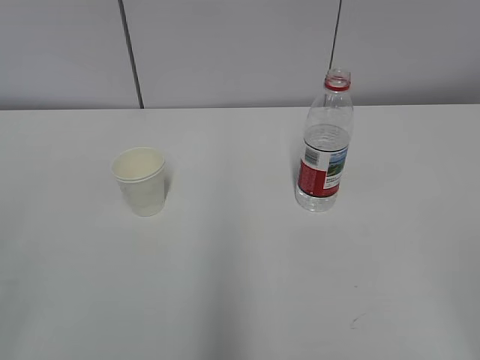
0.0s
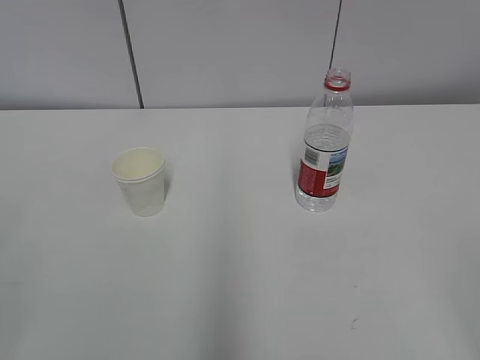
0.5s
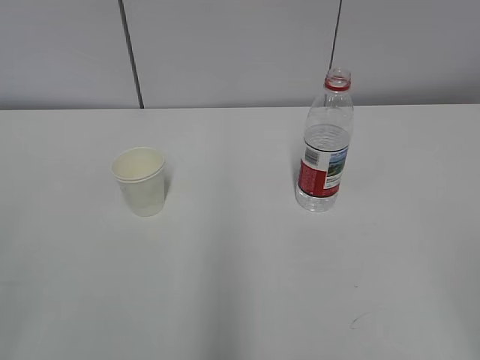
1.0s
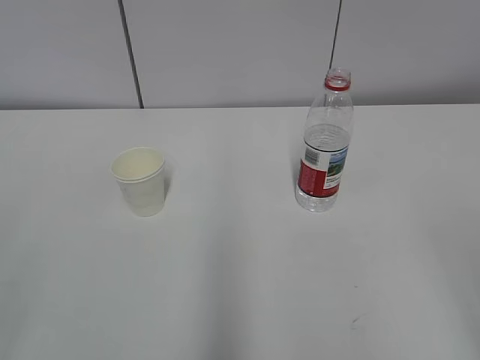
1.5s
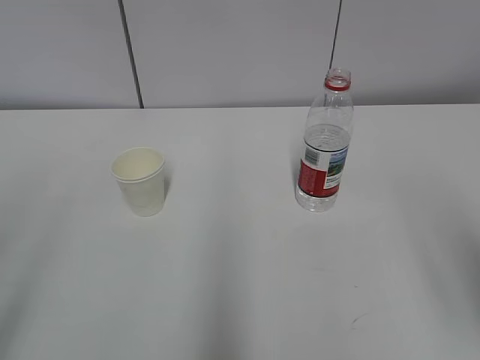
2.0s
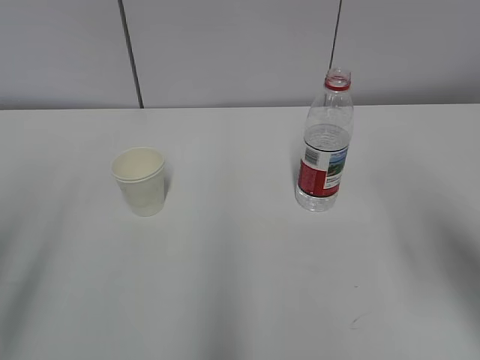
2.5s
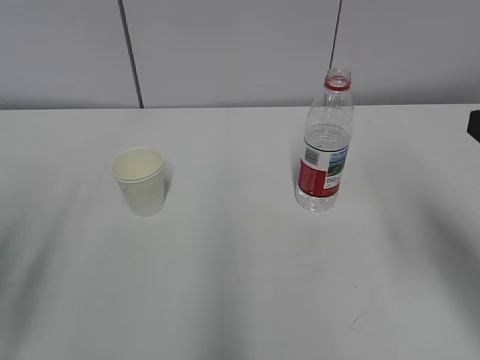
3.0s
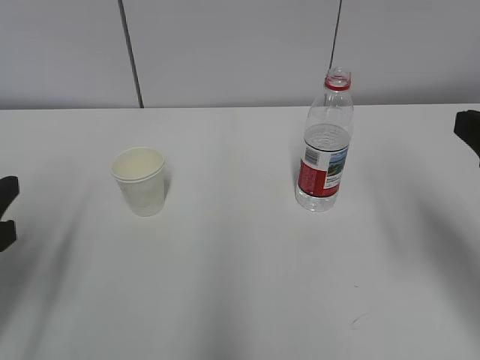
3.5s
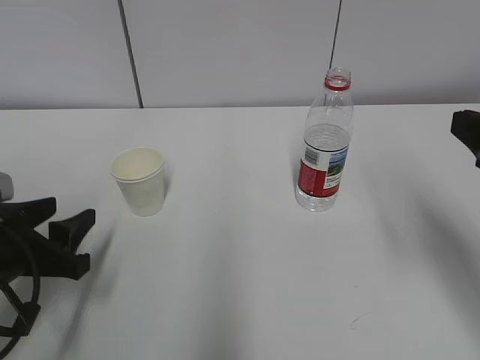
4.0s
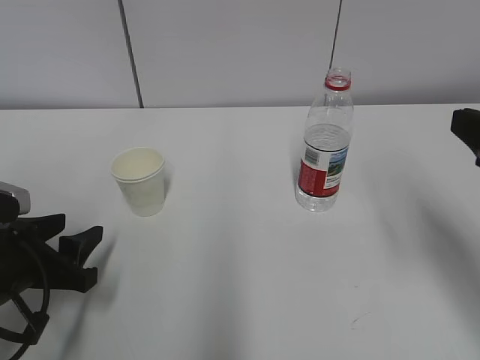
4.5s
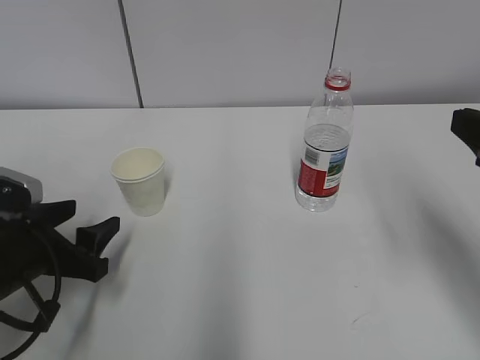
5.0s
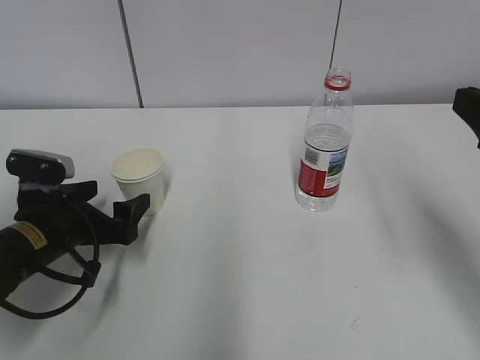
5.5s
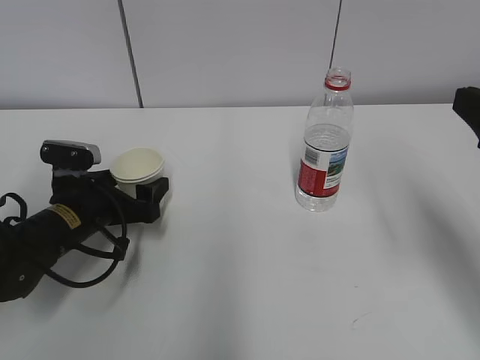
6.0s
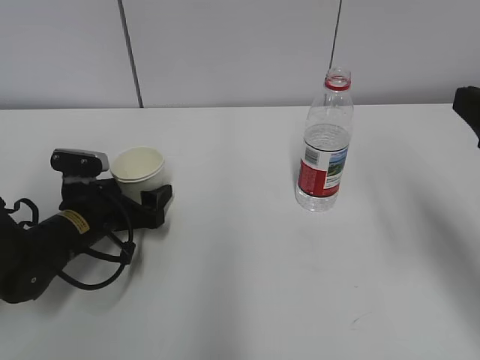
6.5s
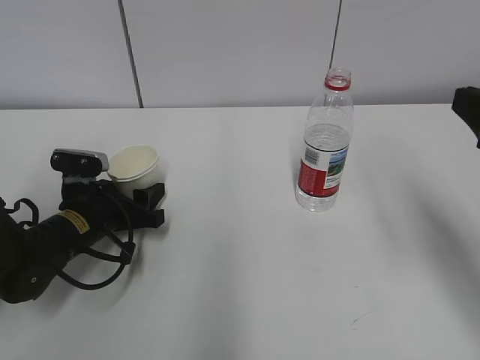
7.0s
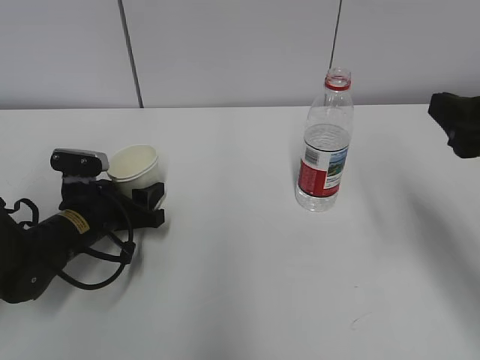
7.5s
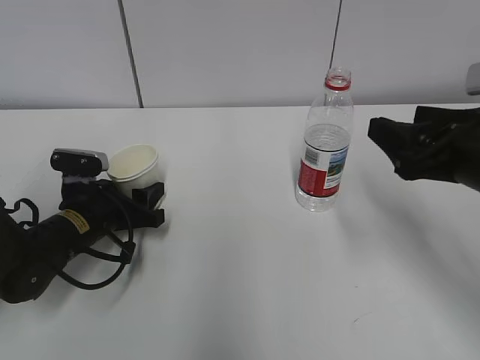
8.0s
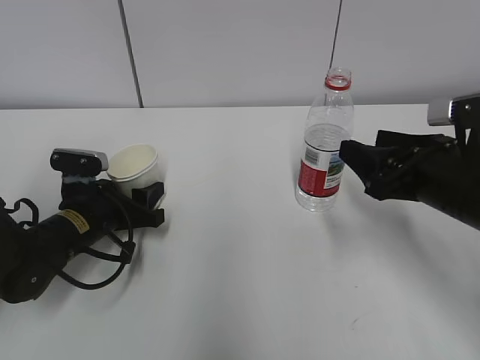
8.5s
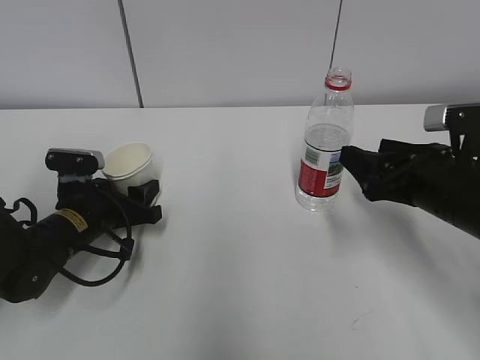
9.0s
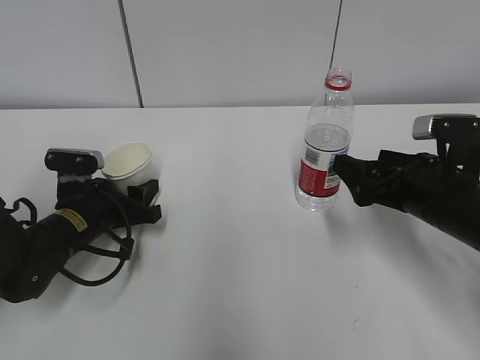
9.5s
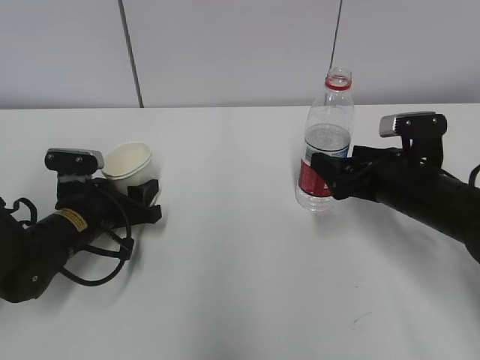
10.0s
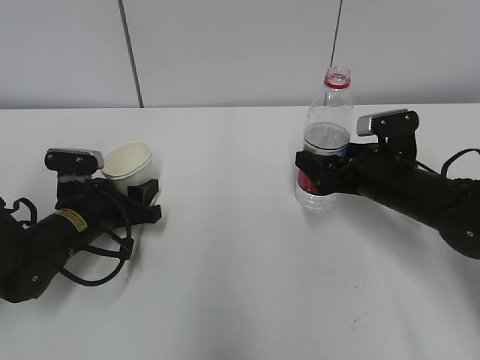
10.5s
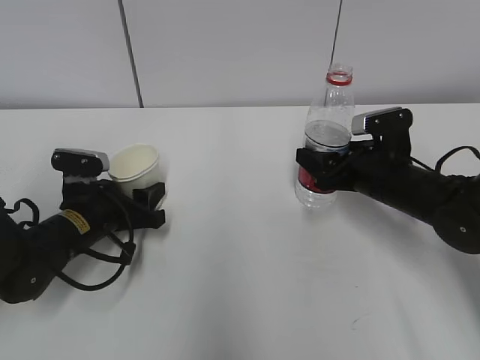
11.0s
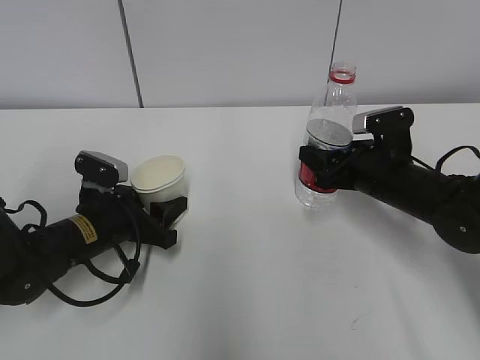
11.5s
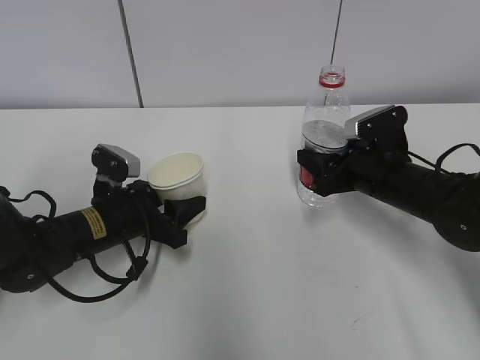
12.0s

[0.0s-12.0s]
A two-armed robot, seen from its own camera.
Step, 0.0s to 7.0s: Grab the paper cup with the left hand.
Step, 7.5s to 9.5s: Grab the water bottle with the right hand.
2.0s to 4.0s: The left gripper heads downward and forward, covering about 25 cm. Meanwhile the right gripper shifts some 10 cm forward.
4.0s to 6.0s: The left gripper shifts approximately 10 cm forward and downward, and opens up.
6.0s to 8.0s: The left gripper closes its fingers. Meanwhile the right gripper travels downward and forward by approximately 5 cm.
8.0s to 10.0s: The right gripper travels downward and forward by about 15 cm, and opens.
10.0s to 12.0s: The right gripper closes its fingers.

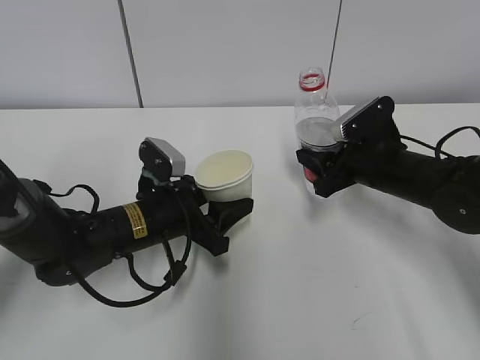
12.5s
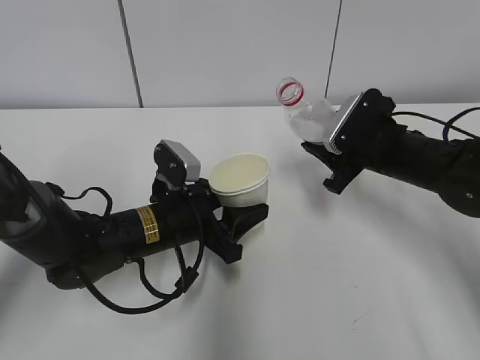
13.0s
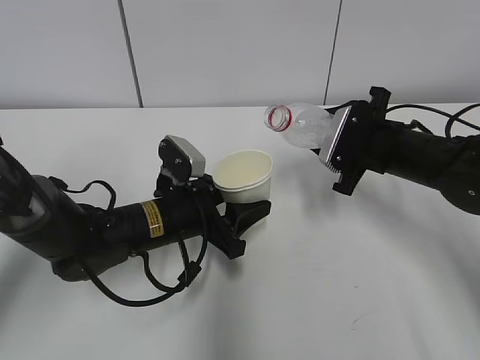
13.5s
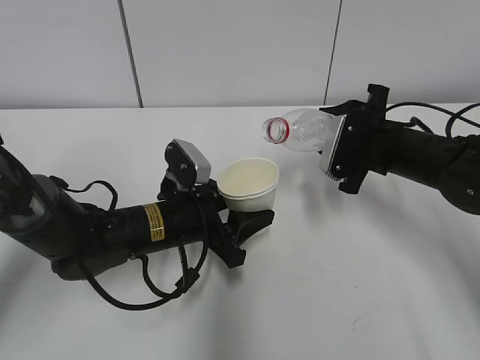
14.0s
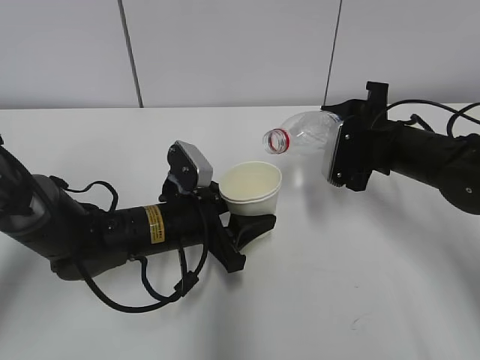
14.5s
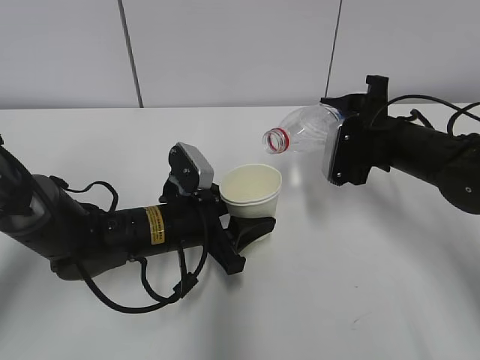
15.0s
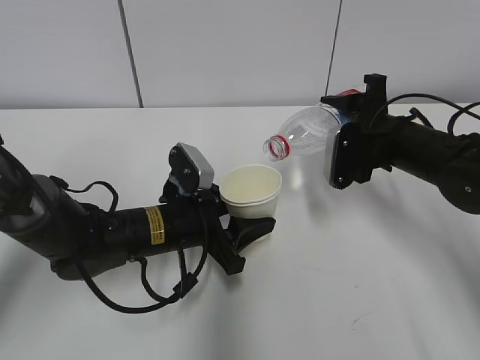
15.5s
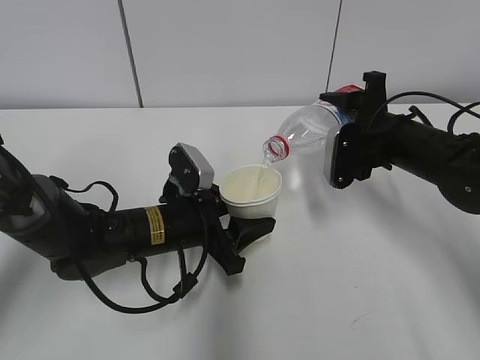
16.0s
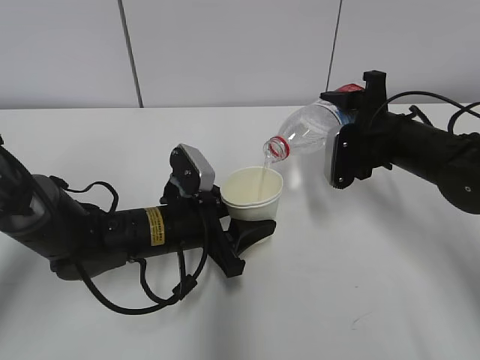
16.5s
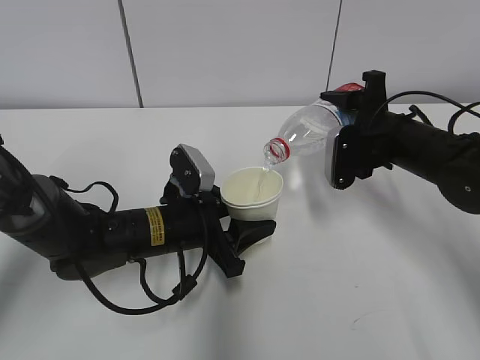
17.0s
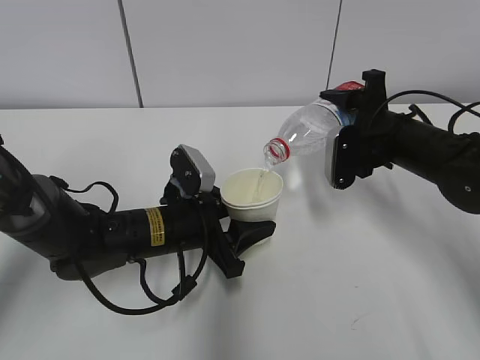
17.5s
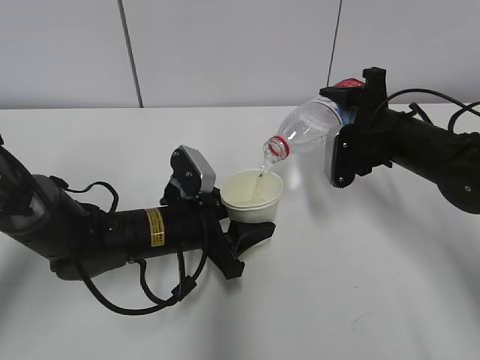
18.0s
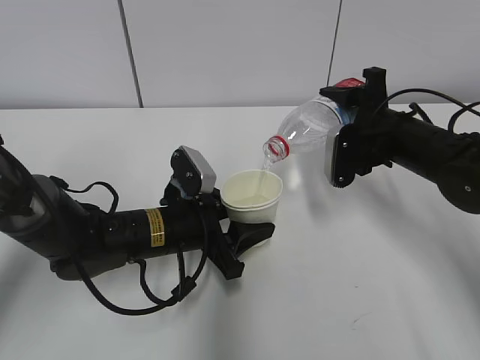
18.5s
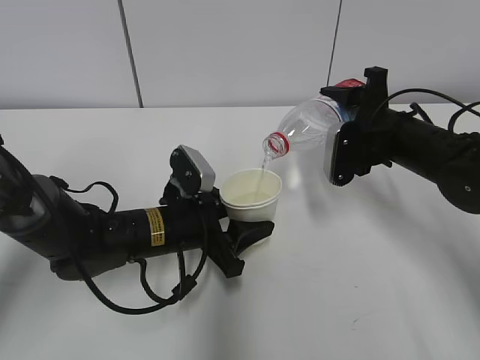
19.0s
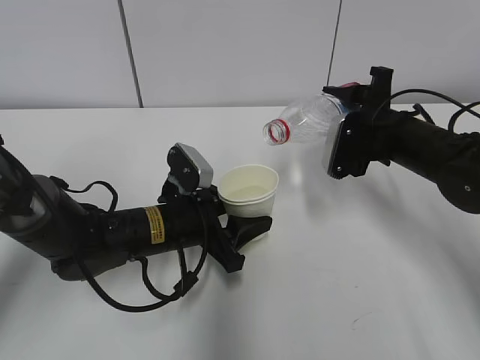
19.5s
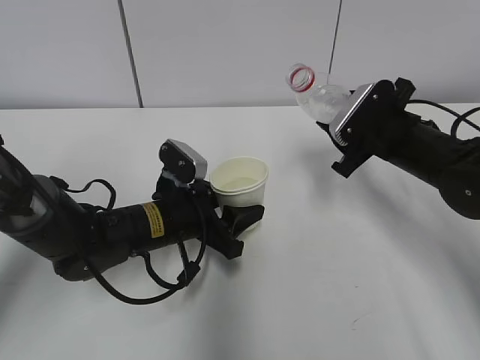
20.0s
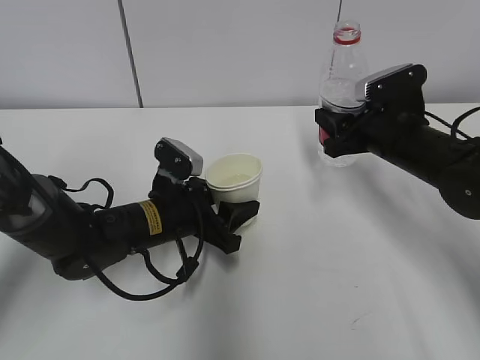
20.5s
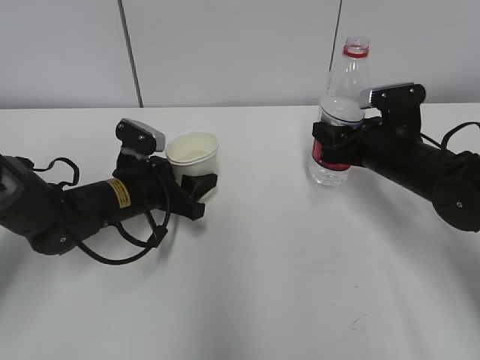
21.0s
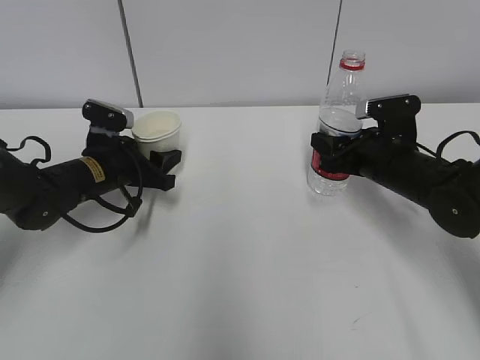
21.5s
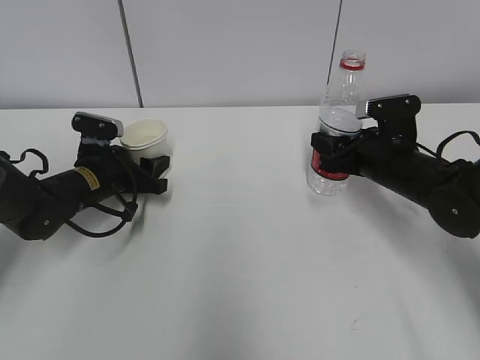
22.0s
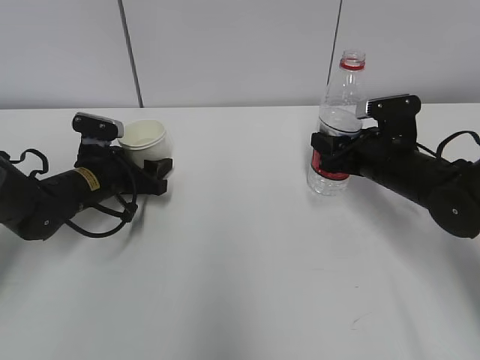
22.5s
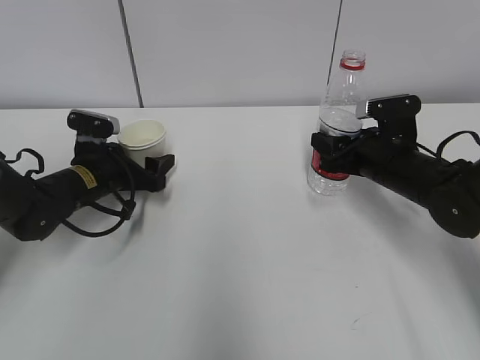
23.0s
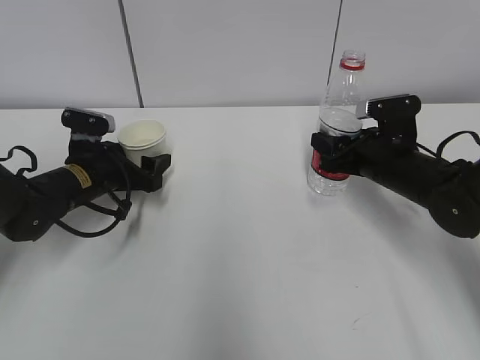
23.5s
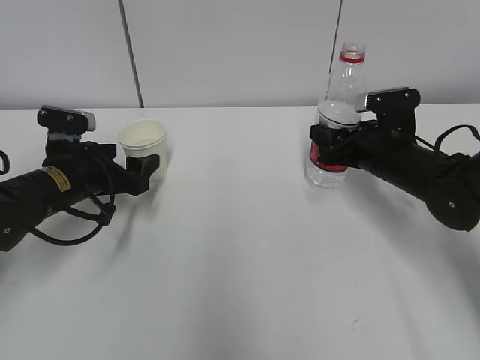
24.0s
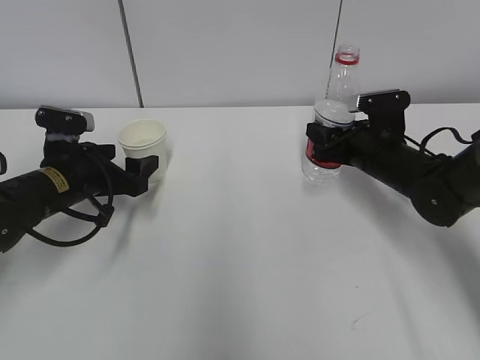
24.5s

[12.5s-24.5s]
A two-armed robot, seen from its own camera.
Step, 13.5s to 16.0s: Fill water with the left hand.
Step, 13.5s to 16.0s: Pour water with the right hand.
Step, 17.5s to 18.5s: Place the paper cup with the left hand.
Step, 19.0s to 21.5s: Place the water bottle with the right hand.
14.5s to 16.5s: There are only small adjustments of the grippers.
16.5s to 18.5s: The two grippers keep their place.
20.5s to 22.5s: The left gripper goes about 15 cm to the left and forward, and opens up.
22.5s to 24.5s: The left gripper ends up roughly 5 cm from where it was, and opens.

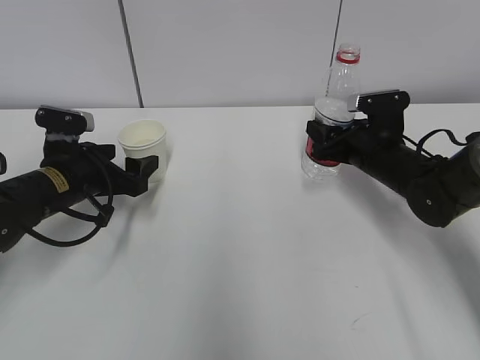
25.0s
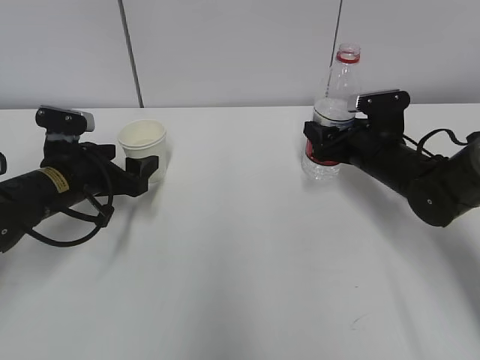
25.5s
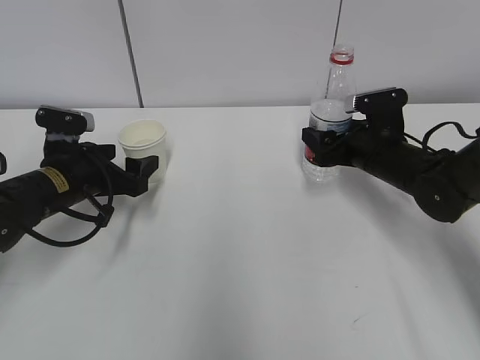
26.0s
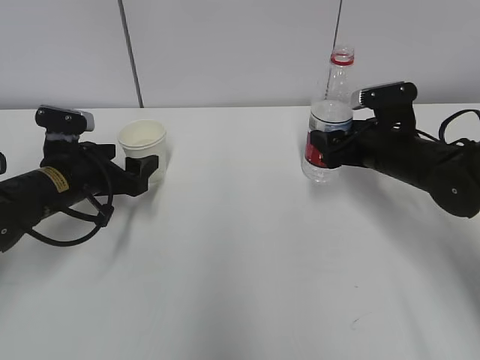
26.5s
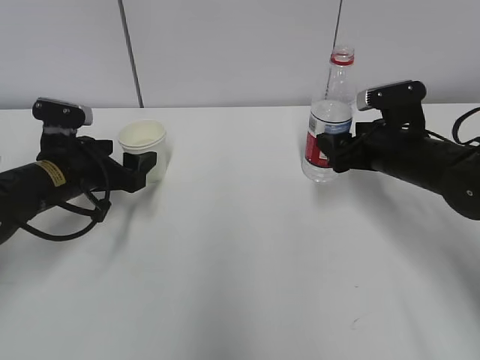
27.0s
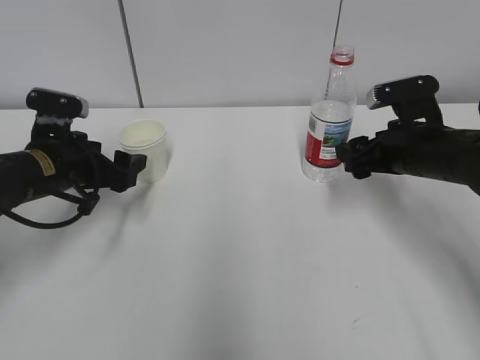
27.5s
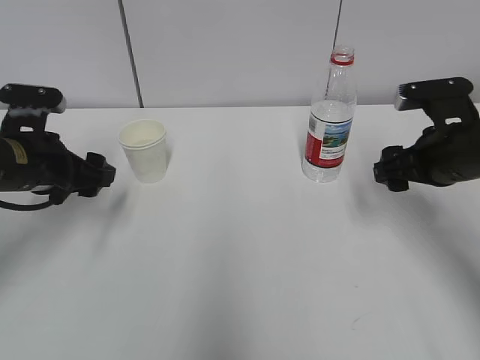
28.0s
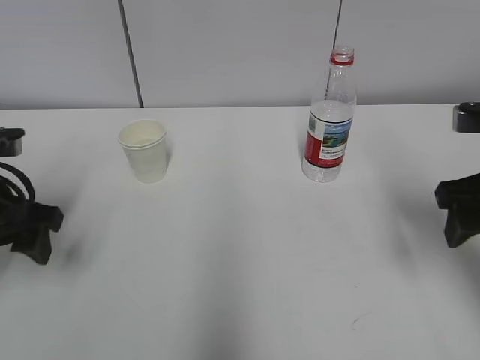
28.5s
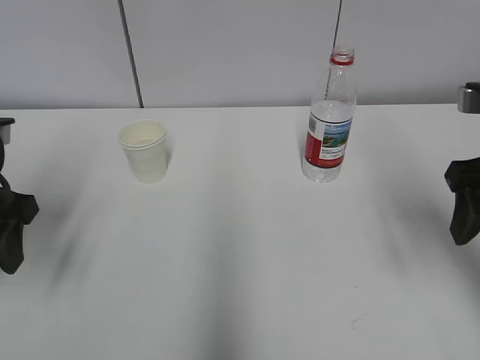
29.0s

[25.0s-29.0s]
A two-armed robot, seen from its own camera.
25.0s to 27.0s: The right gripper opens its fingers.
27.0s to 29.0s: The right gripper is displaced backward and upward by roughly 20 cm. Meanwhile the left gripper goes roughly 15 cm upward and backward.
